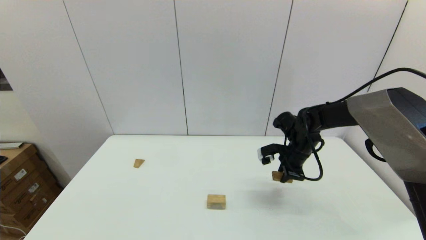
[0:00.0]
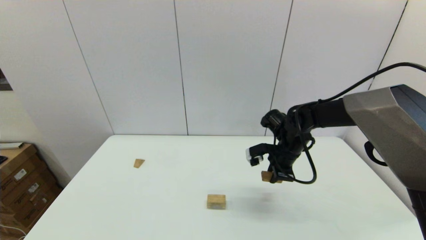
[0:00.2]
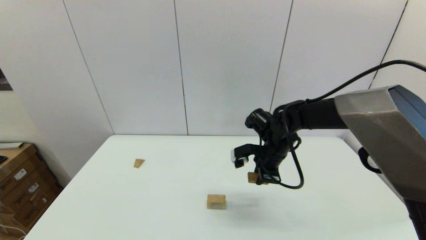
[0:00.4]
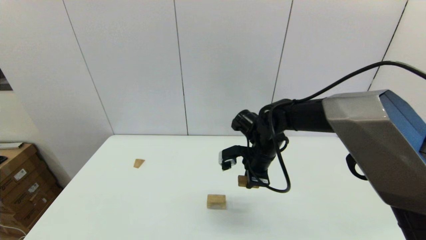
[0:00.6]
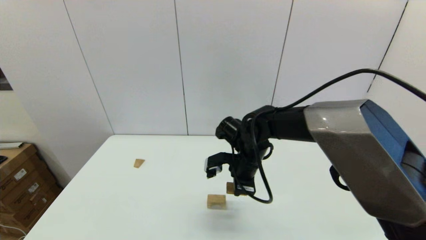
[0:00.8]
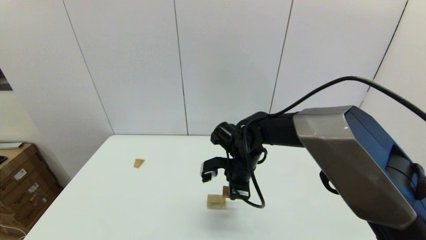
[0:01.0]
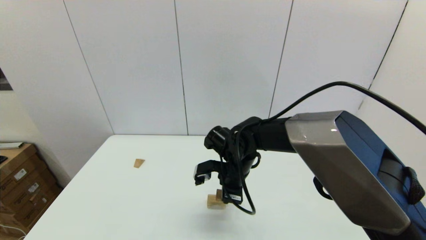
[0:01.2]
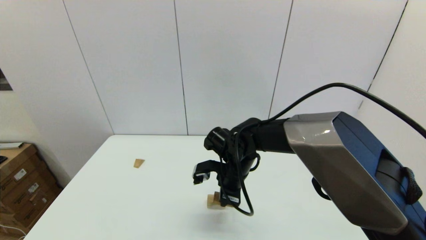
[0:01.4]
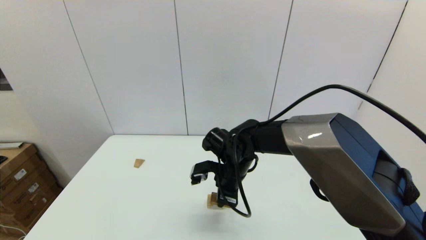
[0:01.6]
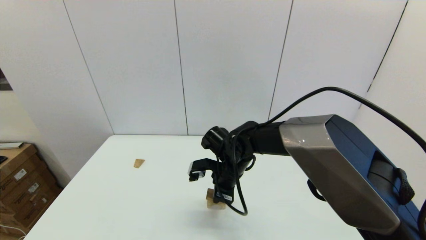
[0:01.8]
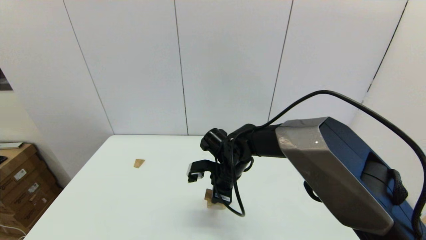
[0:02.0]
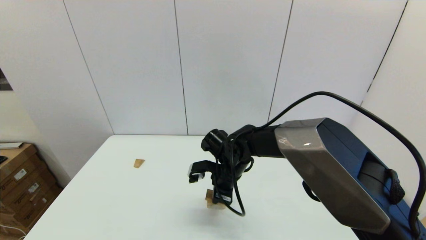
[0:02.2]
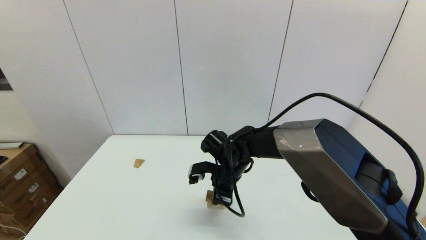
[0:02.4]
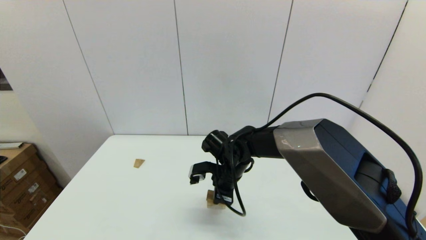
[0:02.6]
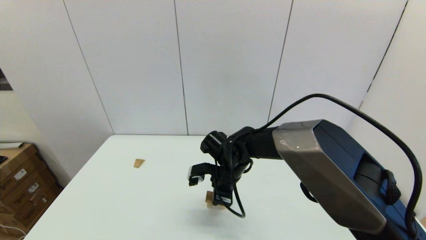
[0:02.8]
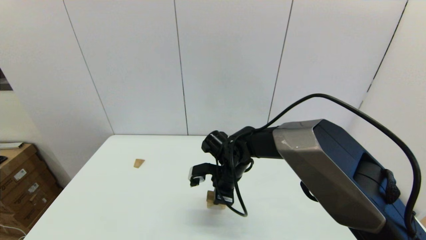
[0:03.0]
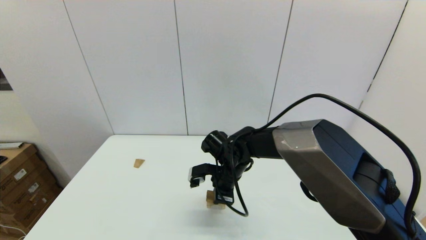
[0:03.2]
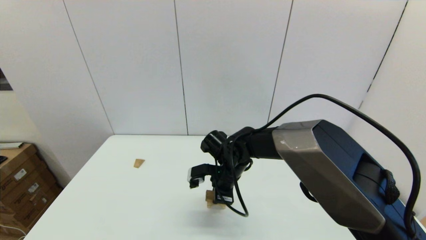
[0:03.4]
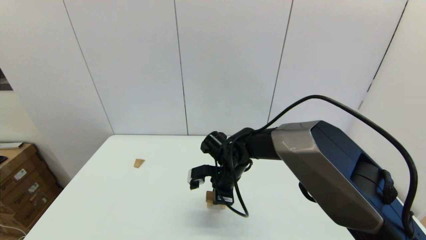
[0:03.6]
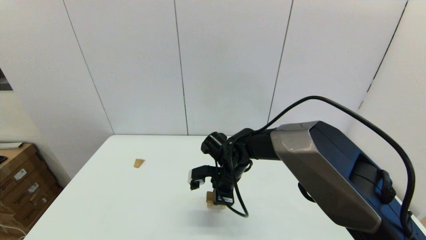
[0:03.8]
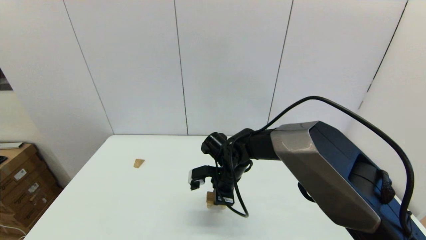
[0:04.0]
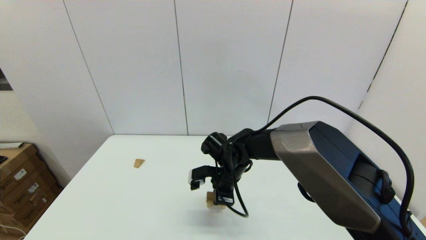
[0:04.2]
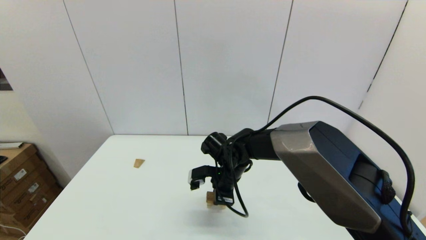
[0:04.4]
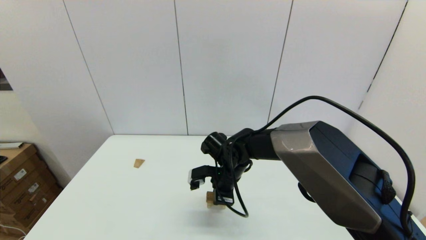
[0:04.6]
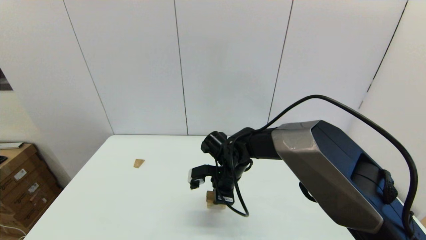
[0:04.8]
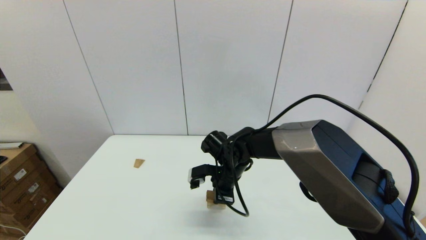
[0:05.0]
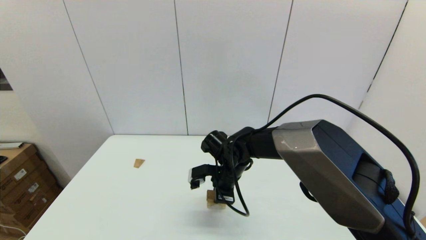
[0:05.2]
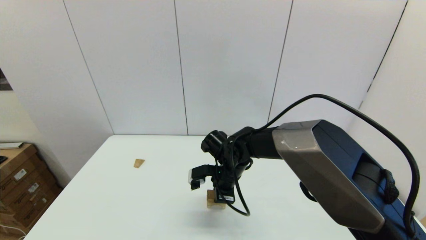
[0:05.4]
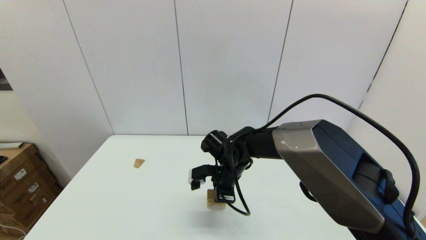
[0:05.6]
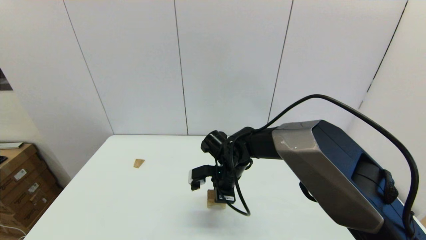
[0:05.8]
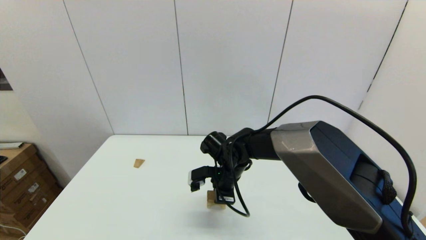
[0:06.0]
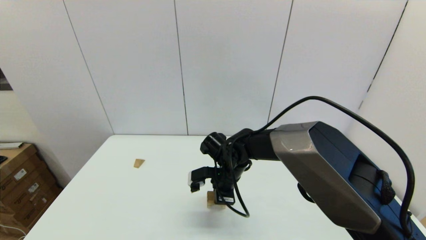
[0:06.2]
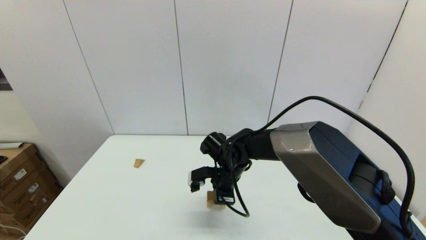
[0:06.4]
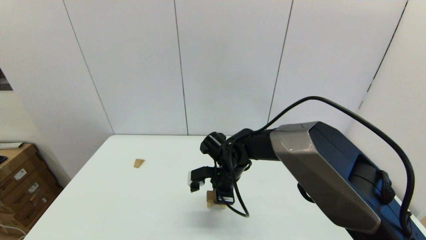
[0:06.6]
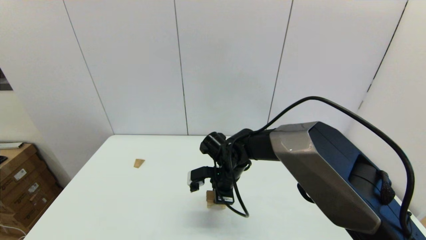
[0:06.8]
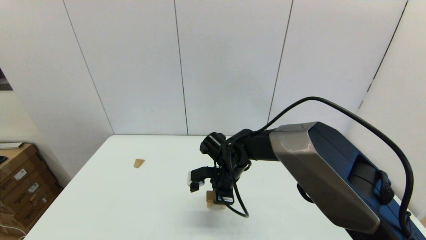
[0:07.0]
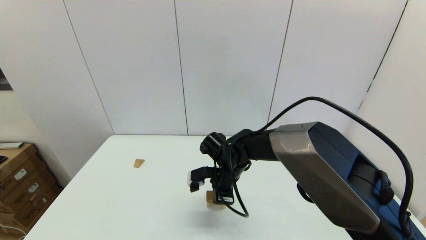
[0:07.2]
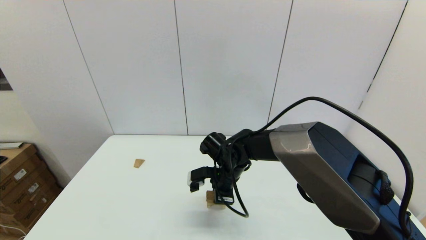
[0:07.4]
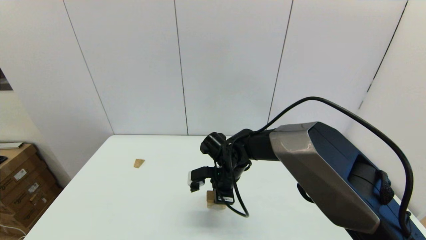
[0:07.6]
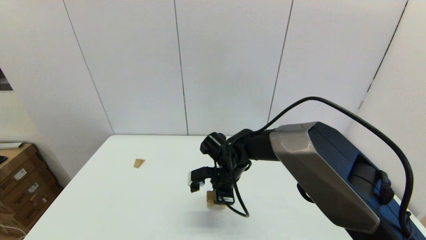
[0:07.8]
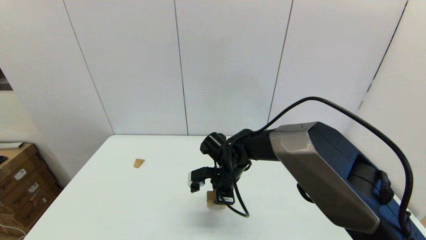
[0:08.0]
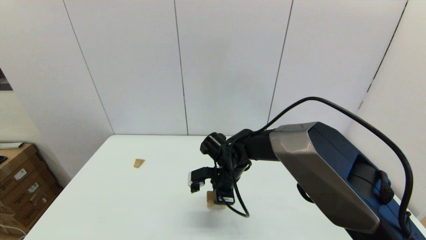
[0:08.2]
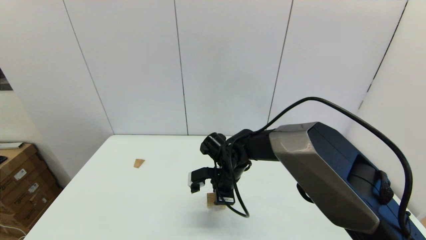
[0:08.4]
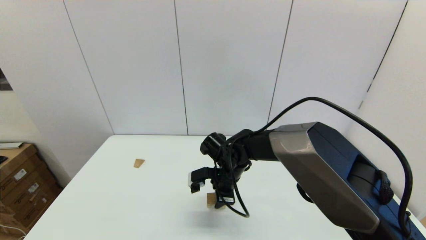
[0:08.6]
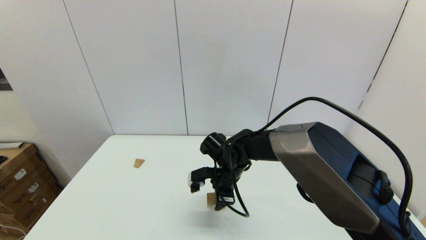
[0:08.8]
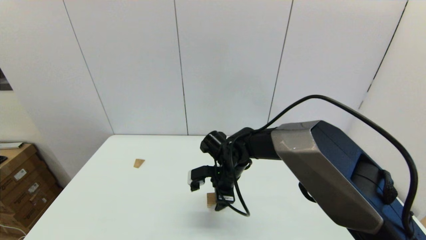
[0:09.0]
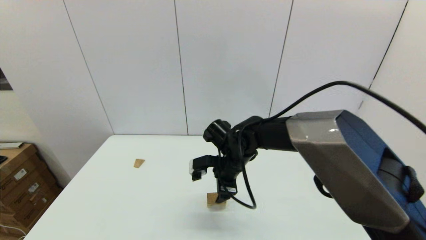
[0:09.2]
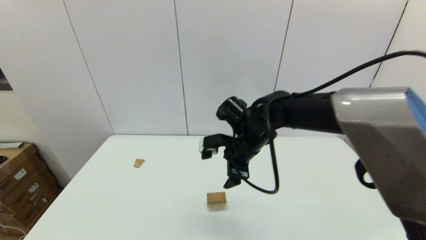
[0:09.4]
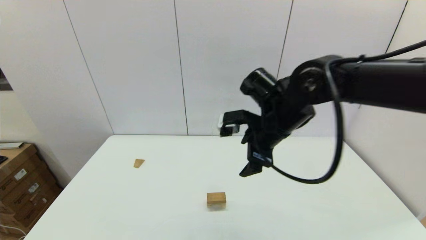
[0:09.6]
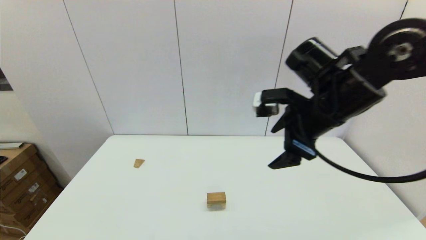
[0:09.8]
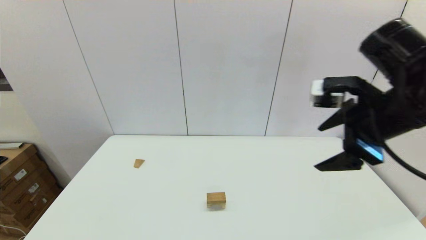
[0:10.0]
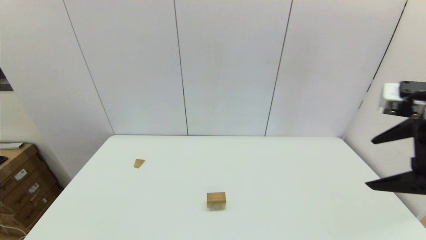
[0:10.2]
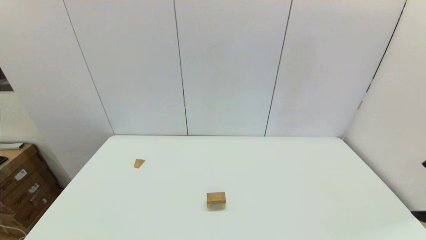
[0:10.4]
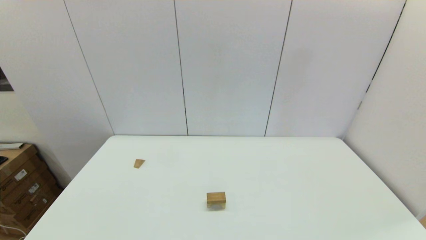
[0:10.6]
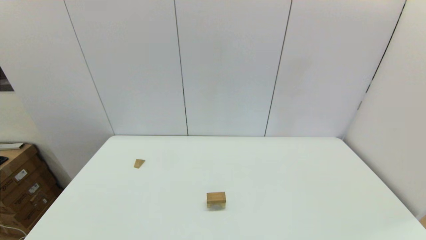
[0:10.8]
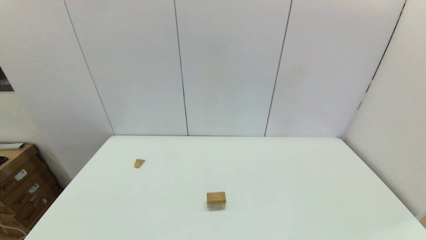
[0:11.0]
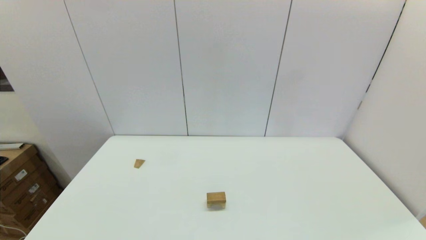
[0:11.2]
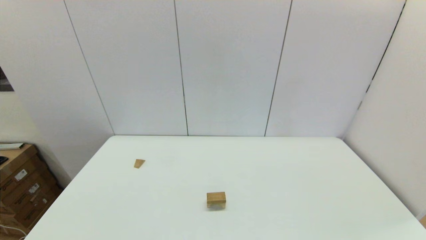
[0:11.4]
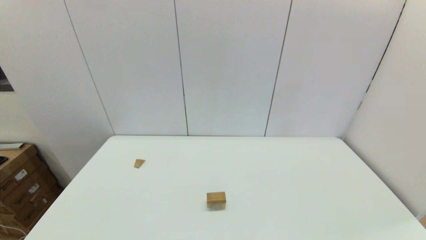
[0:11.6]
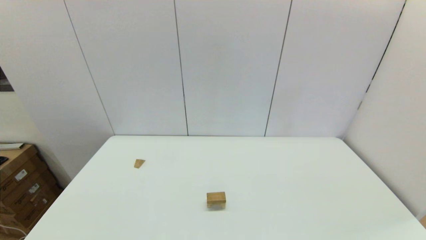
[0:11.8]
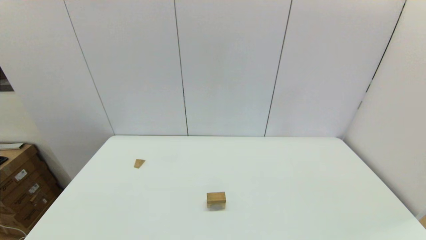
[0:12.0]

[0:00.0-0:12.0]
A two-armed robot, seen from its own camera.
Task of the whole recording: place the arched building blocks in the center of the table, set up the rectangular building blocks, and then set up the triangular building blocks.
Step, 0:00.0 to 0:08.4: Place the box-shaped block onto the arch-shaped block with the right gripper.
0:00.0 to 0:01.6: The right gripper travels to the left by approximately 20 cm.
0:01.6 to 0:03.0: There are only small adjustments of the grippers.
0:03.0 to 0:04.4: Both grippers stay about where they are.
0:04.4 to 0:07.6: Both grippers stay put.
0:07.6 to 0:09.0: The right gripper opens.
0:09.0 to 0:10.4: The right gripper is displaced to the right, backward and upward by approximately 50 cm.

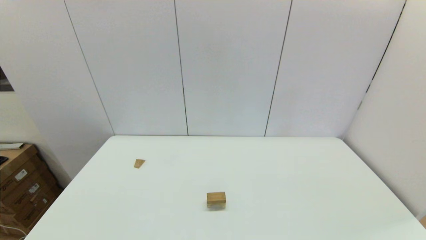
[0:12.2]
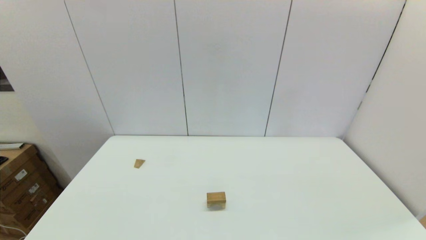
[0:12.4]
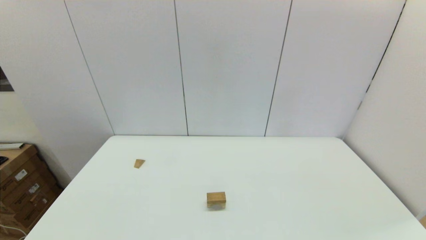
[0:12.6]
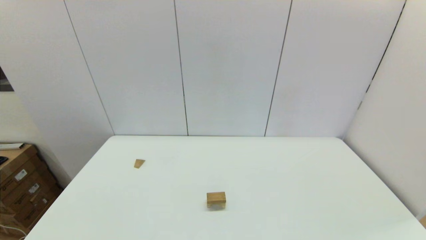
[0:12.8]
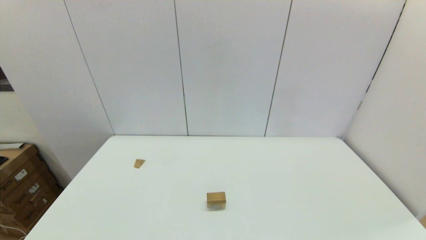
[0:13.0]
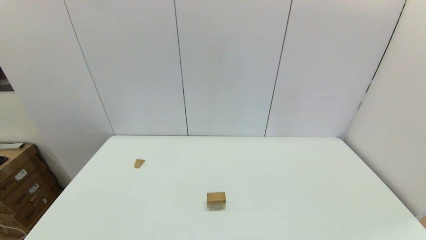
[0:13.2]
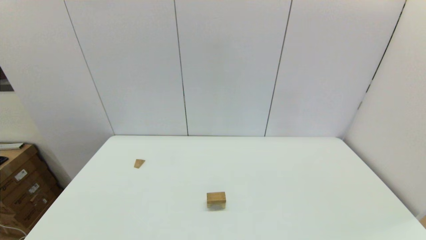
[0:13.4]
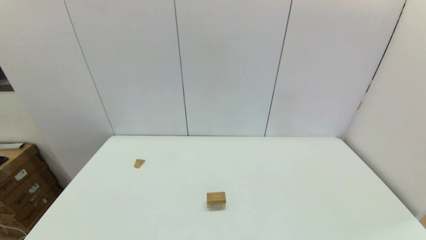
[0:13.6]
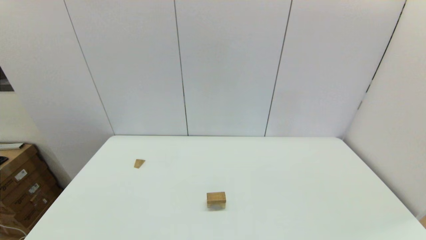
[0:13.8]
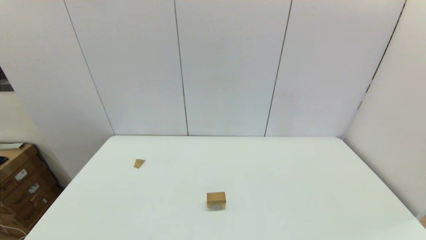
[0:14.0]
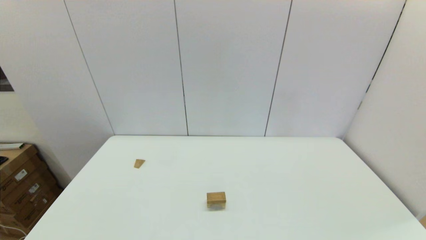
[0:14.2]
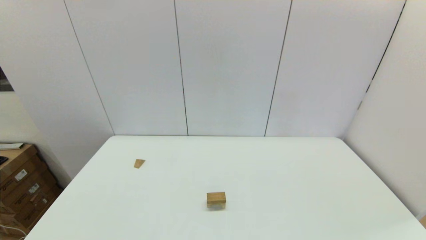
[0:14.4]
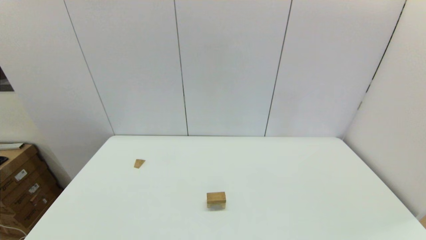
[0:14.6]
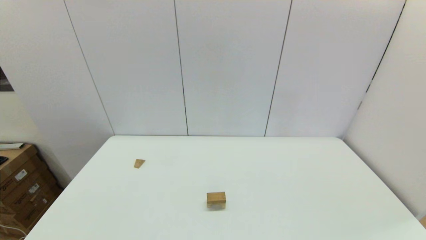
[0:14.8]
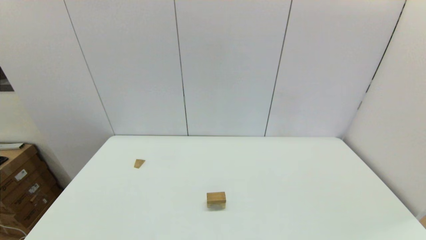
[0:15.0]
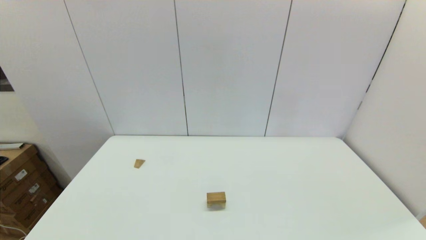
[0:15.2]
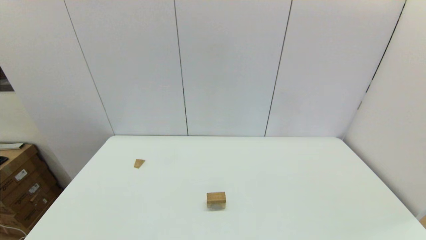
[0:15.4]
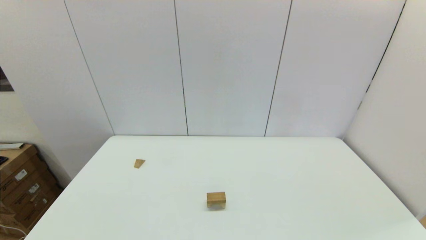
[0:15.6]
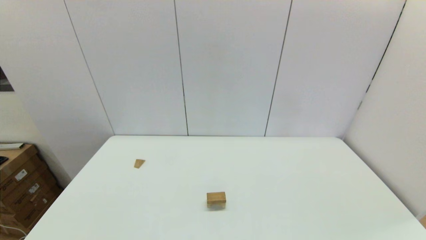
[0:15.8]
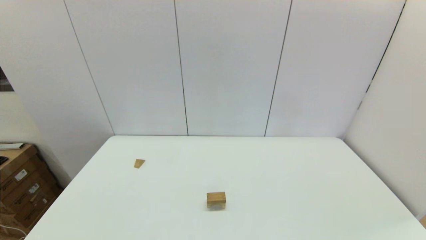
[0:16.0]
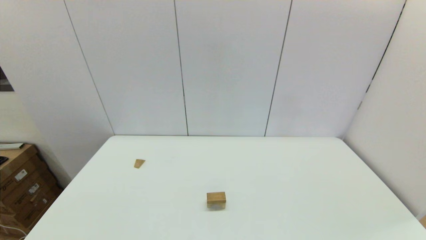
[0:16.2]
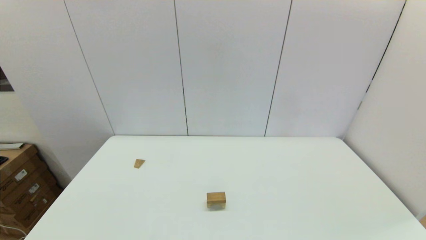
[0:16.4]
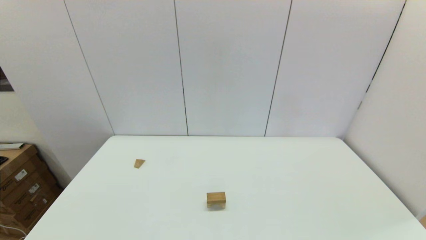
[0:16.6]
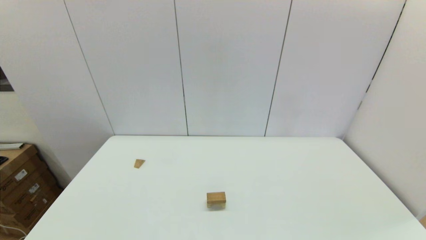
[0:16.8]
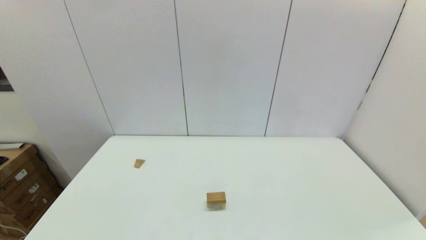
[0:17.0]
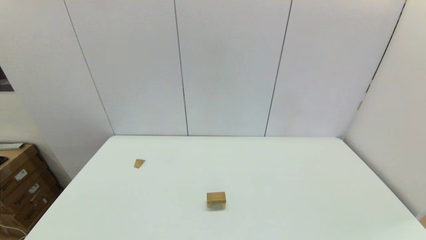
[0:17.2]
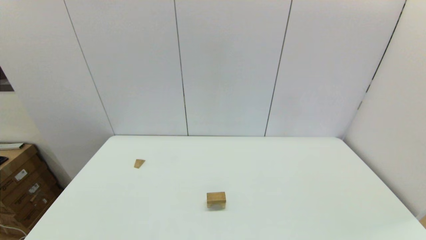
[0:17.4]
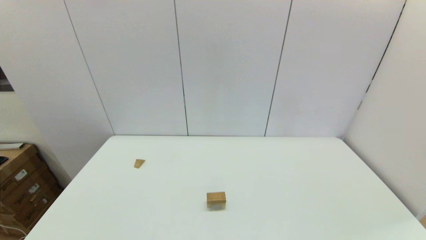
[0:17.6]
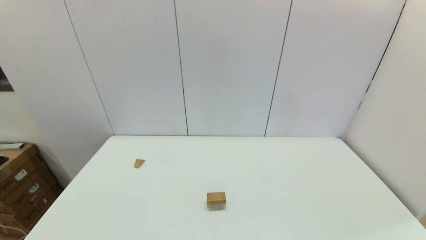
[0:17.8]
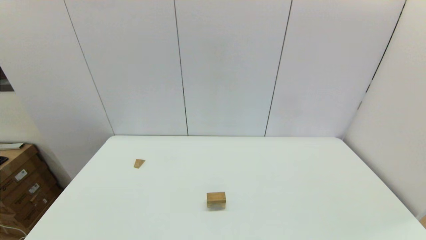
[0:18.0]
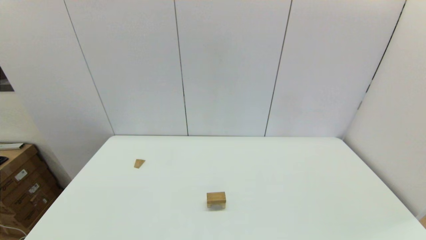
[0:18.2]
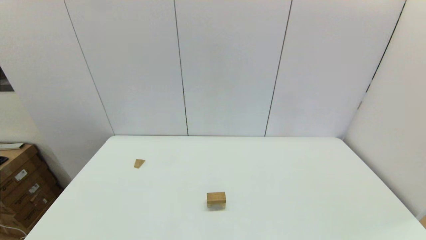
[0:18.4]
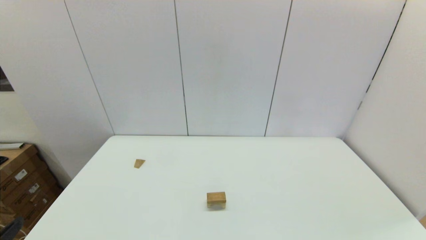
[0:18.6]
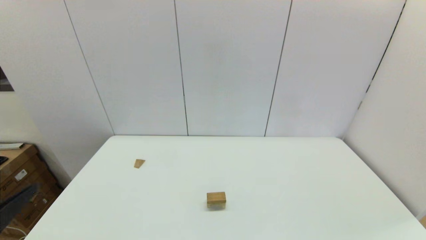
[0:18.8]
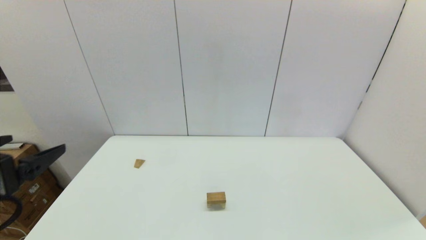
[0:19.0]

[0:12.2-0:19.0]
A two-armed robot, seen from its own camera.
Task of the whole recording: place the arched building blocks in the center of the table, set up the rectangular building blocks, and then set up the triangular building blocks.
0:16.2 to 0:17.6: Both grippers stay about where they are.
0:17.6 to 0:19.0: The left gripper is displaced upward and forward by roughly 20 cm.
